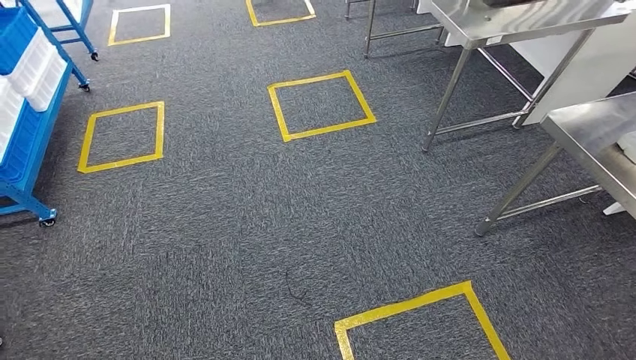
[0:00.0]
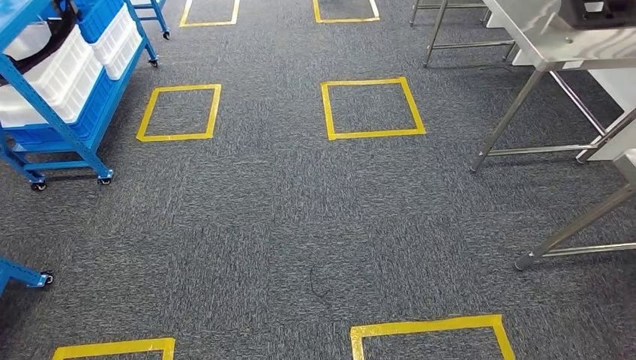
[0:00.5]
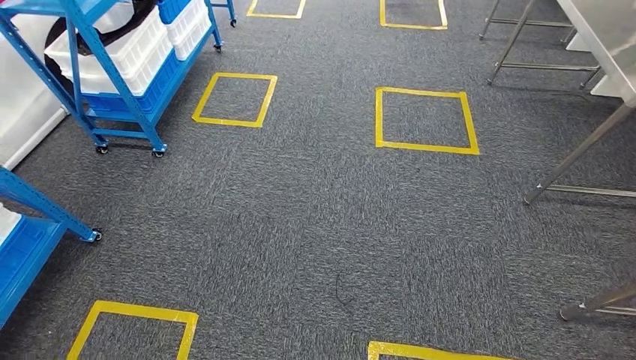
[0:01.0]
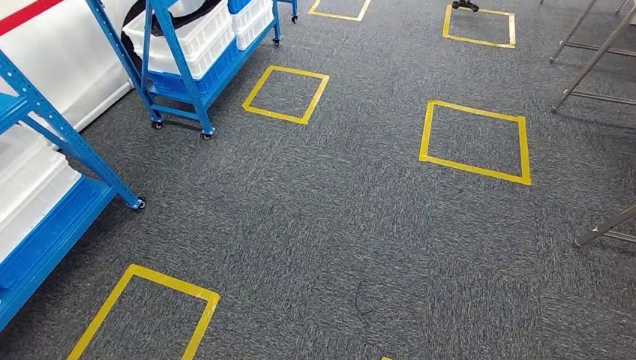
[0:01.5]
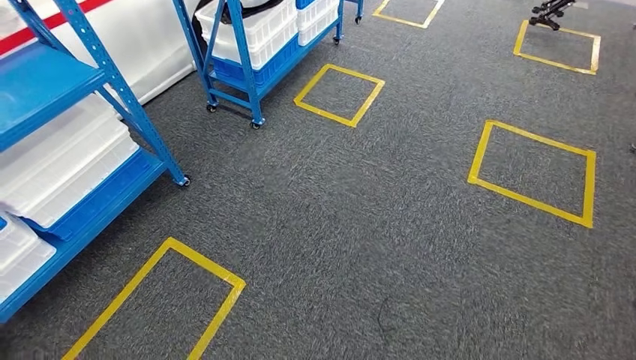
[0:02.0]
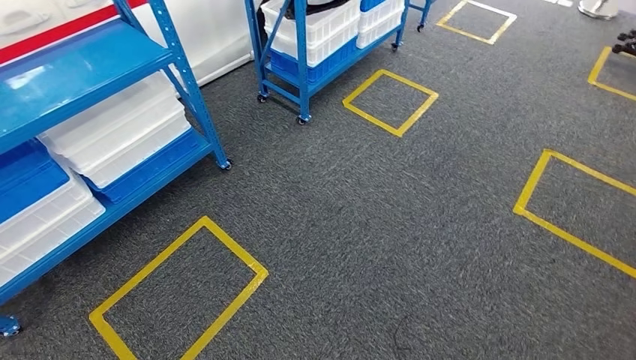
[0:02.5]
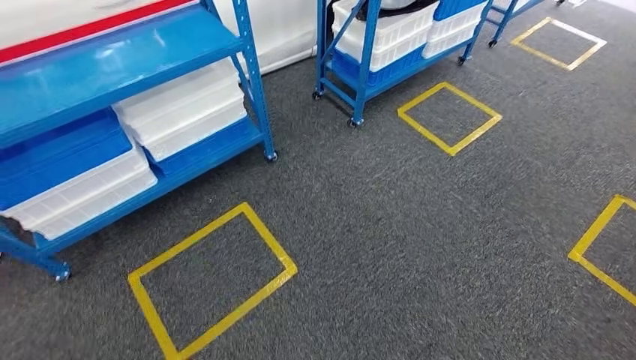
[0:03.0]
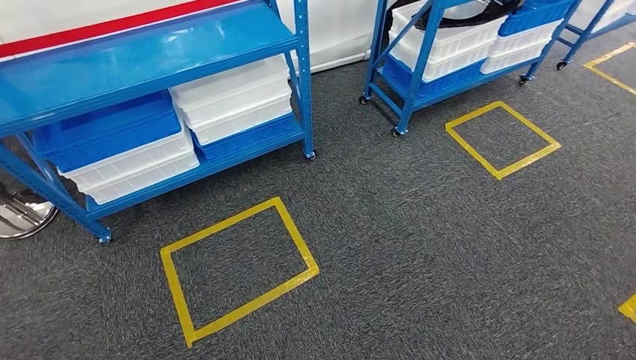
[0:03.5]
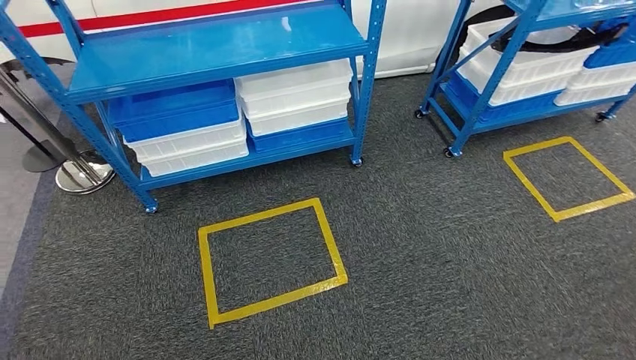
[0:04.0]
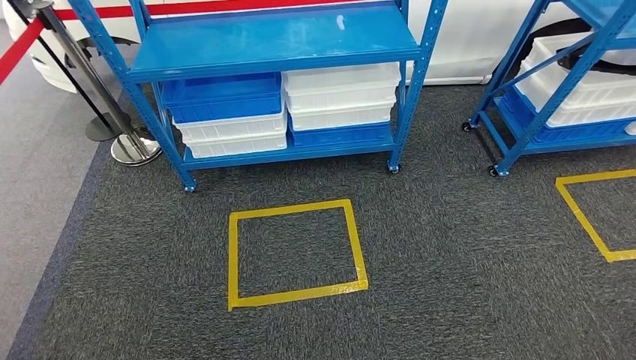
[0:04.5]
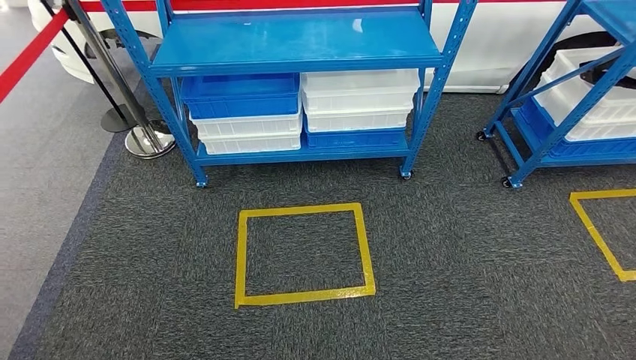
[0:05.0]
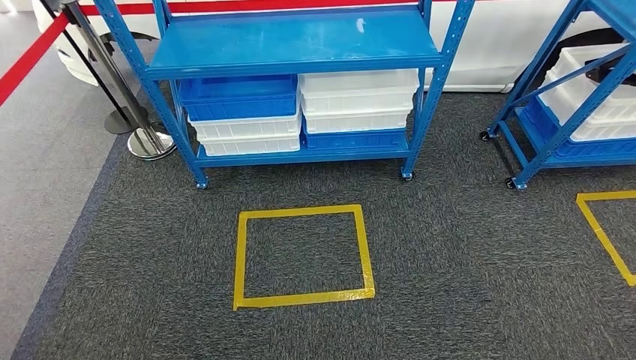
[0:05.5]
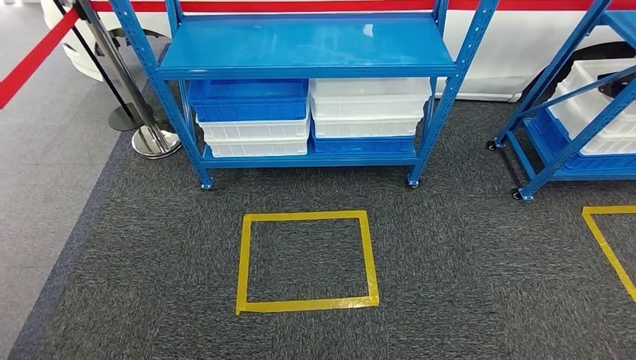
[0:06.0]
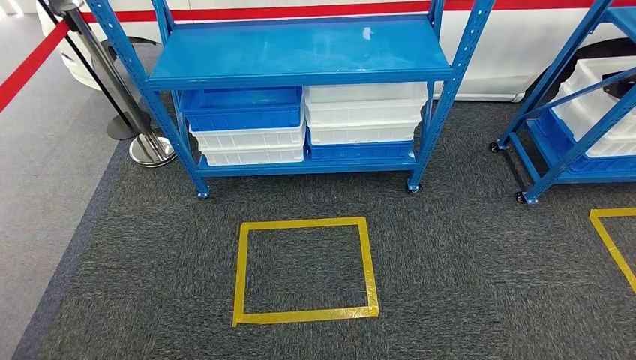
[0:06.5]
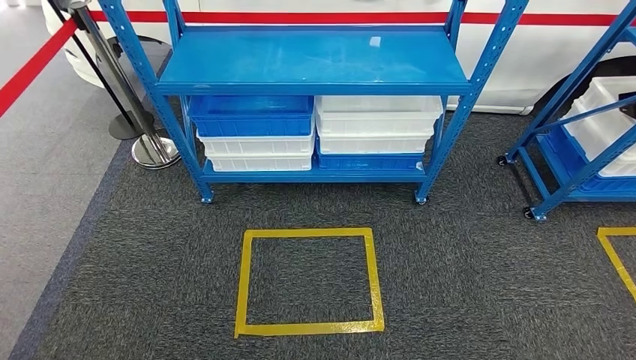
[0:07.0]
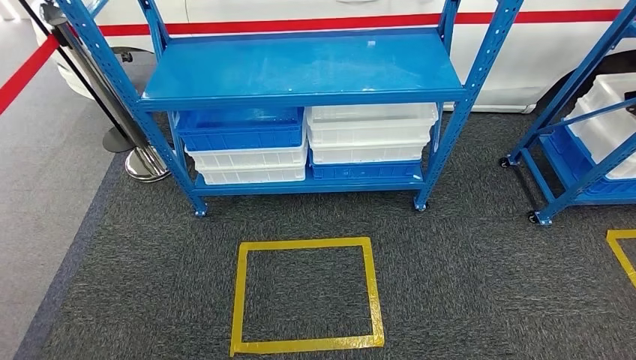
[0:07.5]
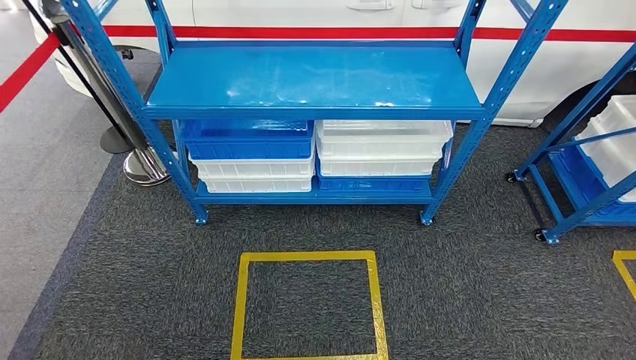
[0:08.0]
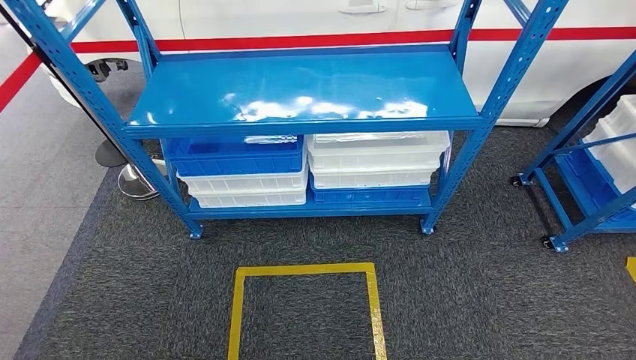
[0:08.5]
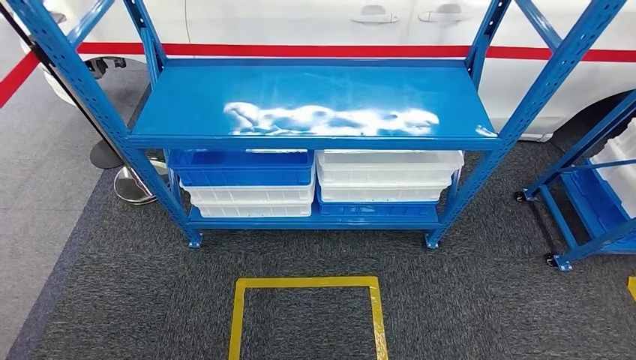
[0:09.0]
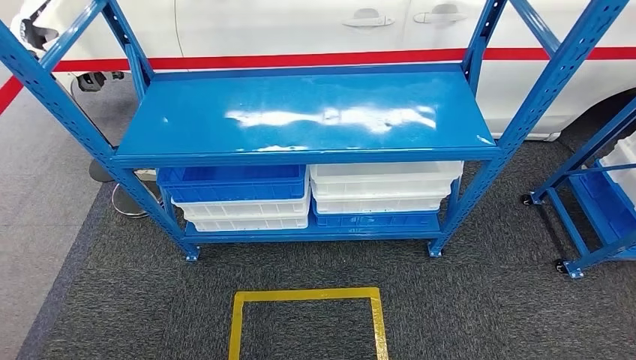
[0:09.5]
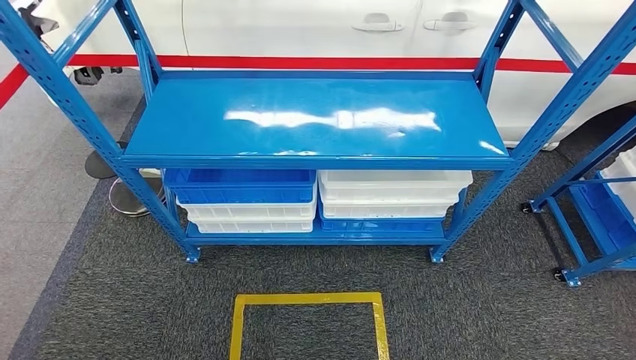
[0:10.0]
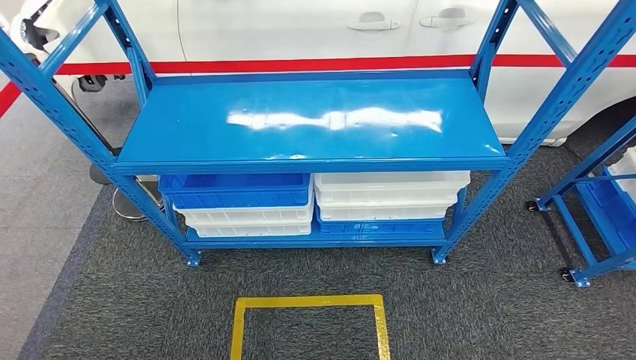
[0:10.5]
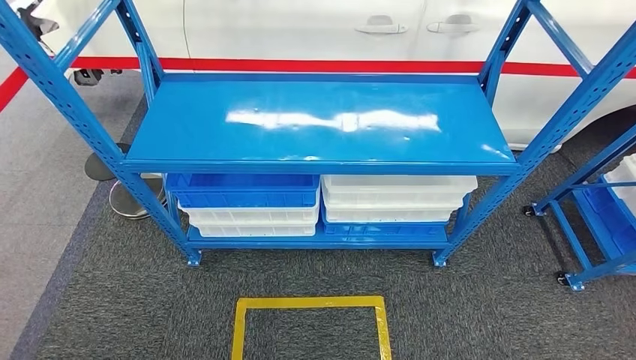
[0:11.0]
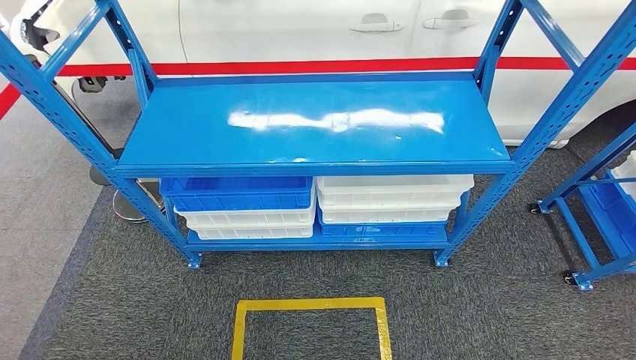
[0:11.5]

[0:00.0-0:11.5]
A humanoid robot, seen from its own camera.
Step, 0:00.0 to 0:11.5: Return to the initial position at the shelf.
